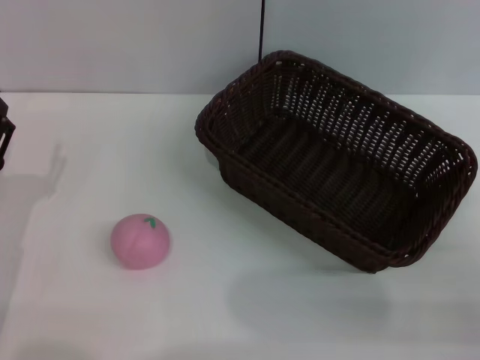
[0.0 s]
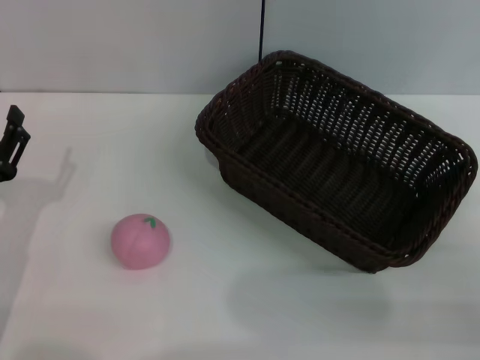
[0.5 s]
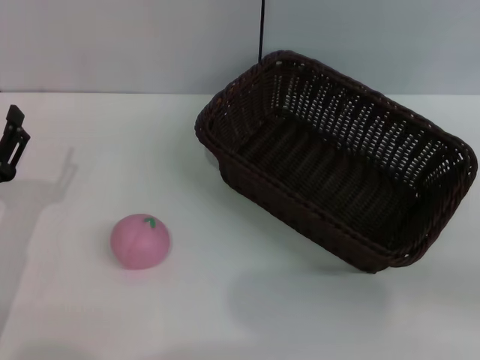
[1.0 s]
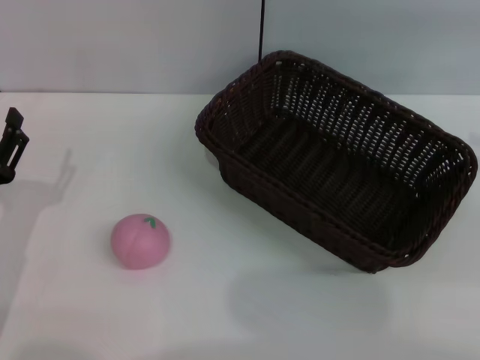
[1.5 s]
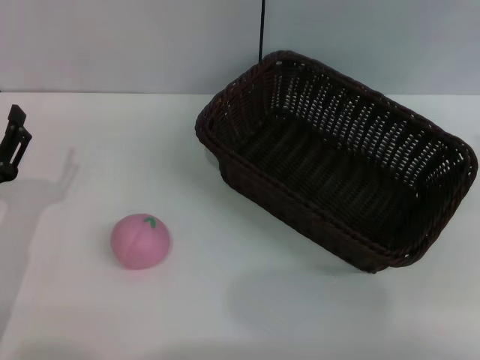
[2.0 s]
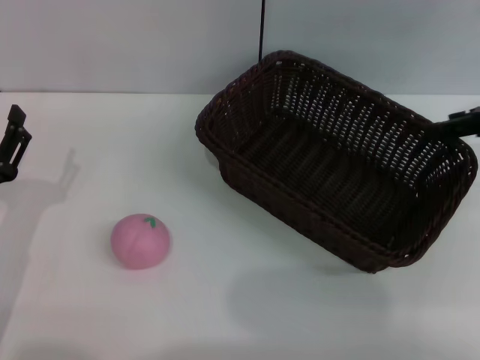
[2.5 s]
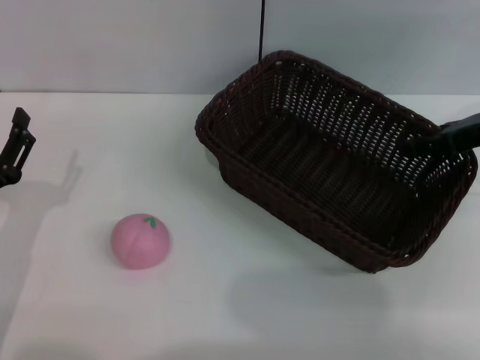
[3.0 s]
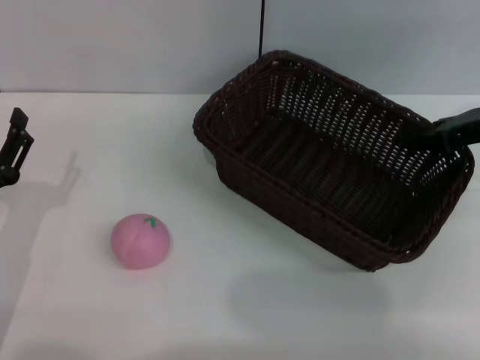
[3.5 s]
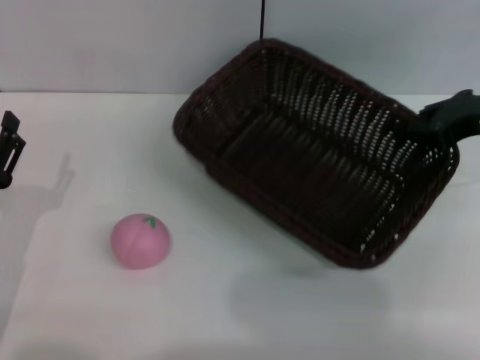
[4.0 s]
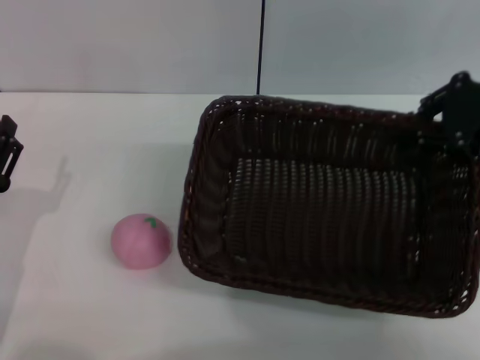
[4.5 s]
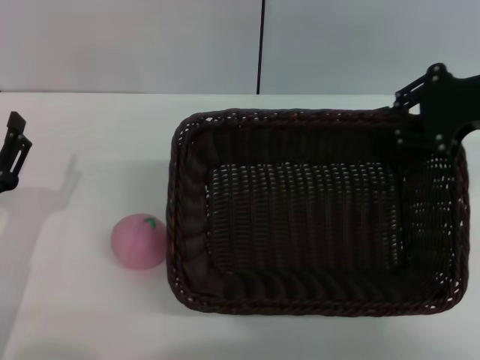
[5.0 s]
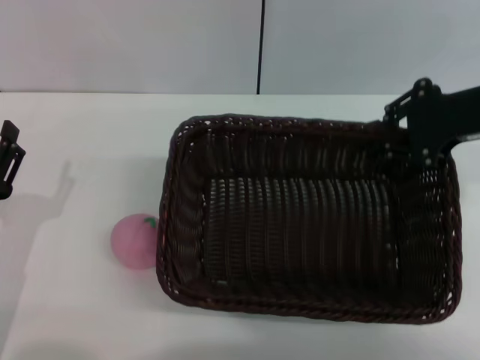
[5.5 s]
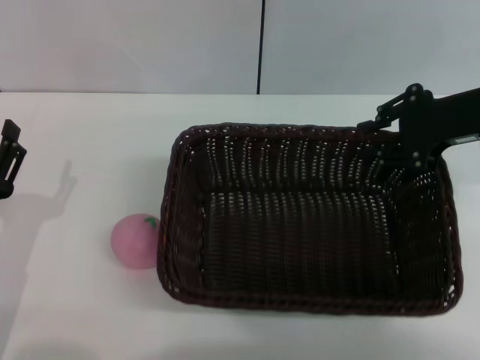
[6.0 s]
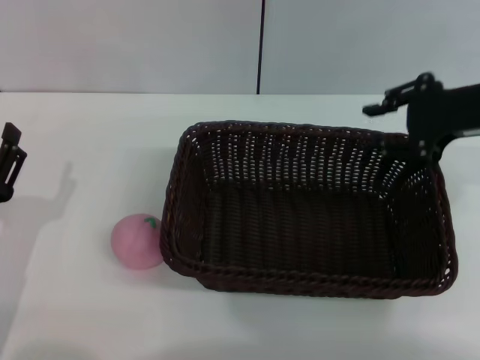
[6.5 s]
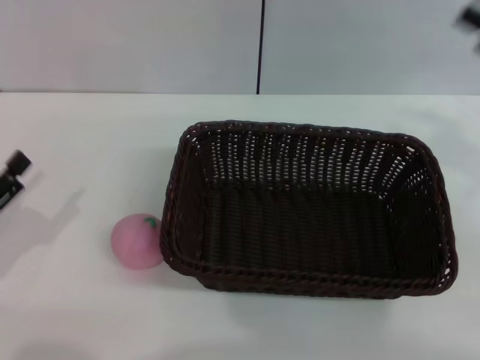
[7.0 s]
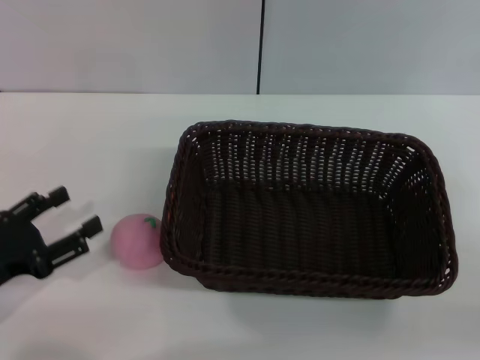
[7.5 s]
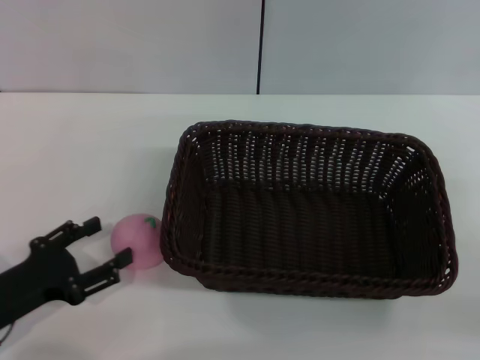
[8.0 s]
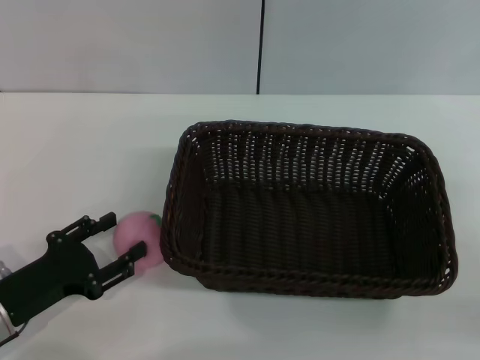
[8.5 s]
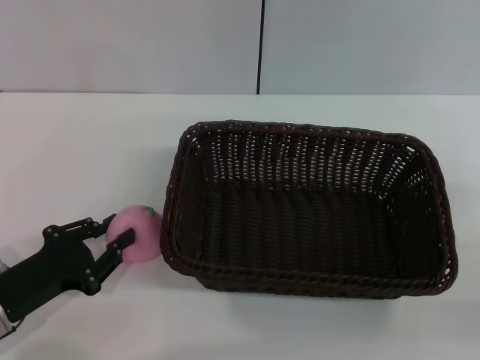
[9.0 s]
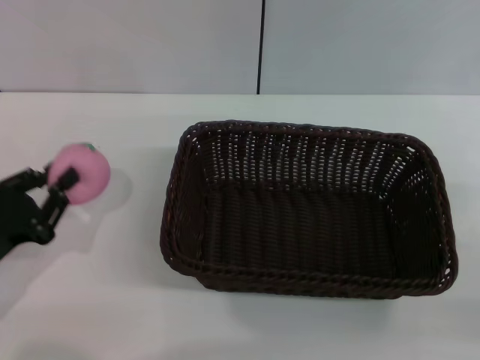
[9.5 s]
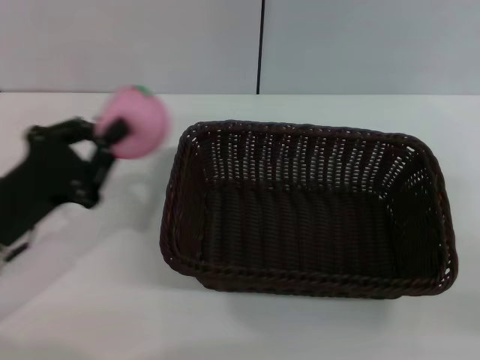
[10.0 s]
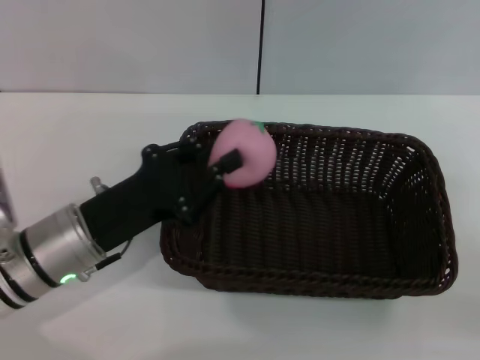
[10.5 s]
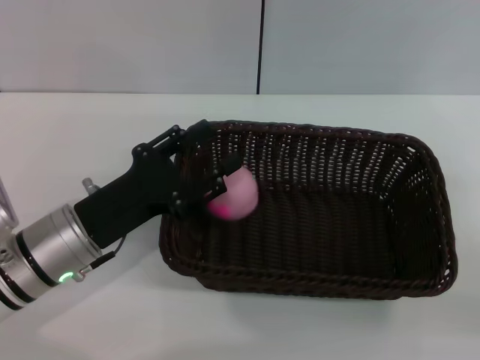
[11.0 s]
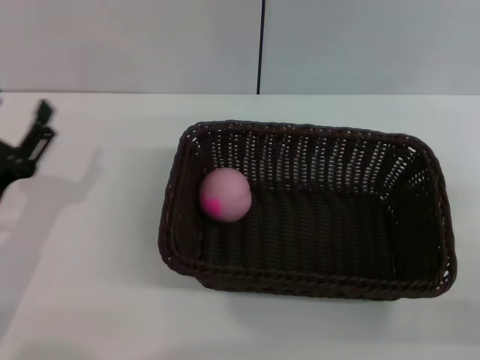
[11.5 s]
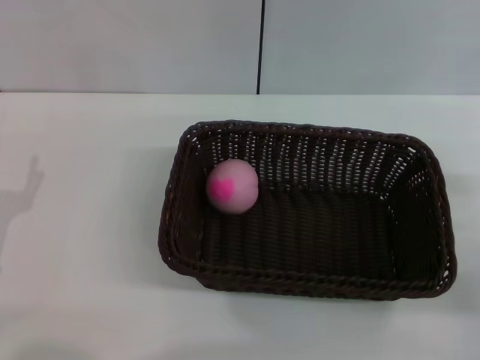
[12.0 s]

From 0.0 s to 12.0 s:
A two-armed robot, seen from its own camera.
Step, from 0.0 s to 4.0 s: Pick up the dark basket with the right gripper.
Step, from 4.5 s to 6.5 s: Place the dark basket in the center of view with the right gripper.
Step, from 7.0 s to 9.0 s: Pick up the peach with the left gripper.
Step, from 9.5 s to 11.0 s: Place the peach into the basket with the left gripper.
From 0.0 s to 2.0 s: The right gripper moves upward and forward, approximately 25 cm.
From 2.0 s to 4.0 s: The right gripper heads downward and to the left, covering some 10 cm, and closes its fingers.
From 6.0 s to 8.0 s: The right gripper shifts roughly 20 cm backward, to the right and downward, and opens its fingers.
From 8.0 s to 10.0 s: The left gripper travels upward by about 5 cm, and closes.
From 10.0 s to 12.0 s: The left gripper changes place by some 5 cm, and opens its fingers; the right gripper opens up.
